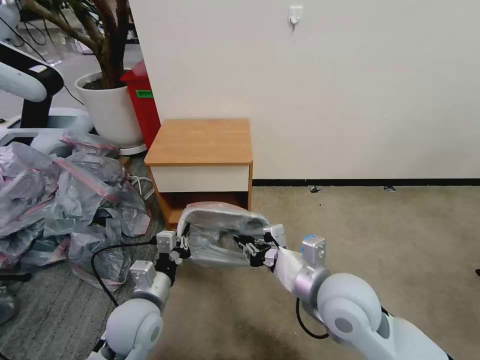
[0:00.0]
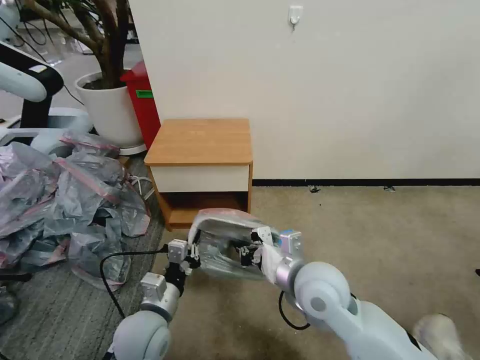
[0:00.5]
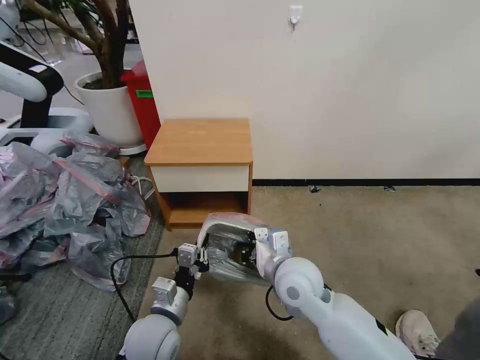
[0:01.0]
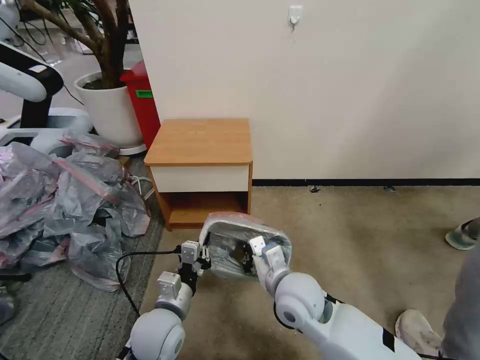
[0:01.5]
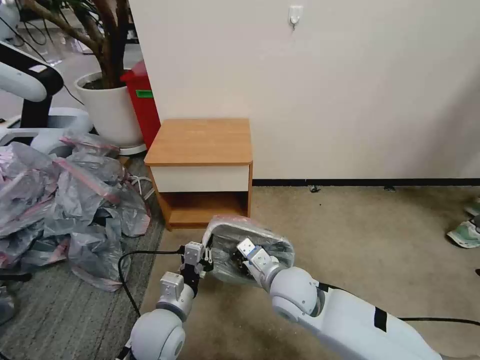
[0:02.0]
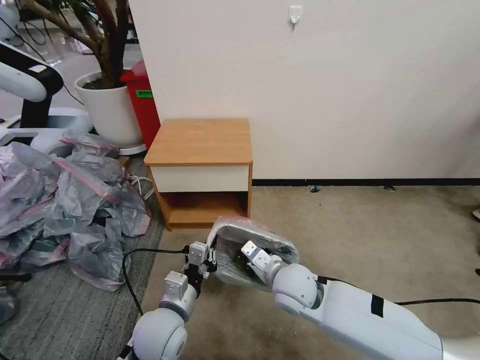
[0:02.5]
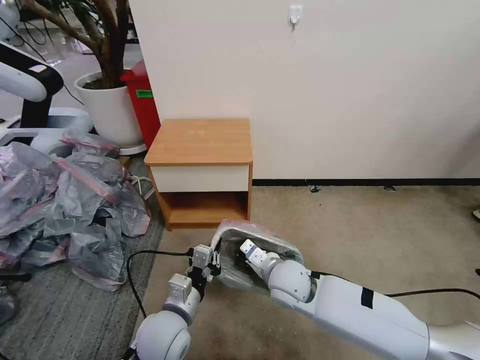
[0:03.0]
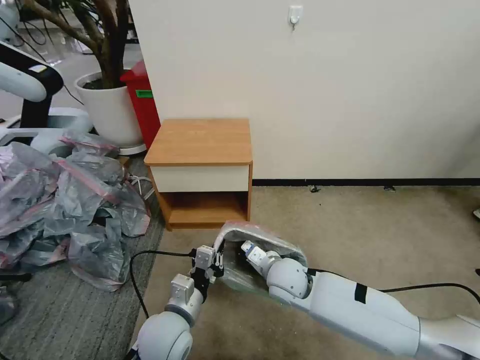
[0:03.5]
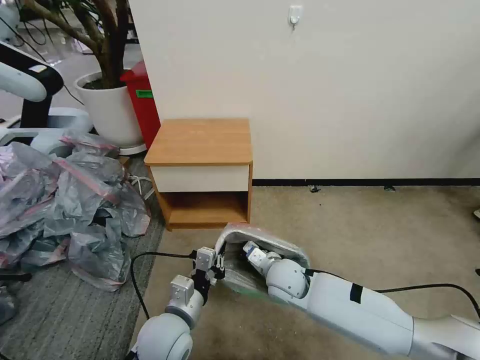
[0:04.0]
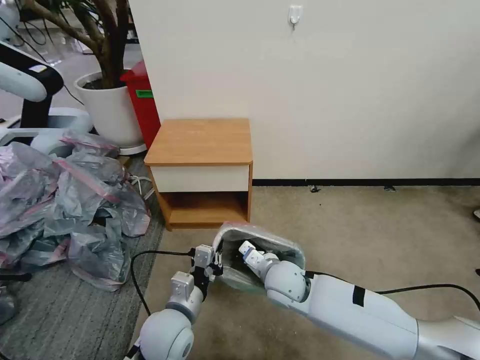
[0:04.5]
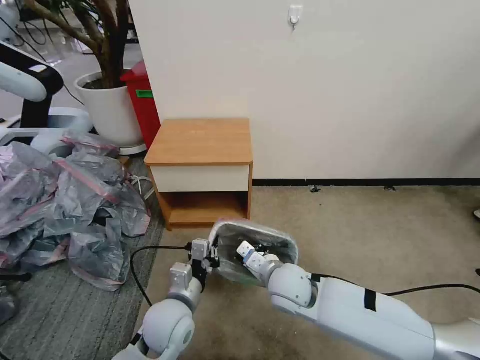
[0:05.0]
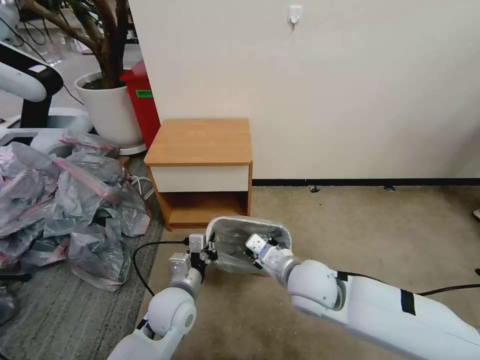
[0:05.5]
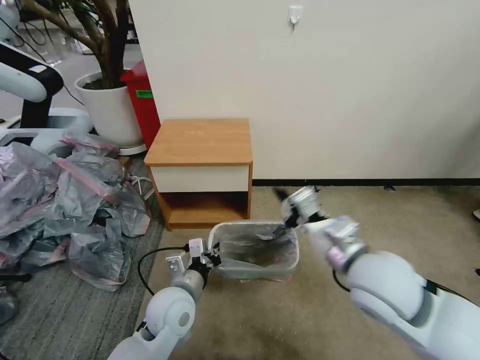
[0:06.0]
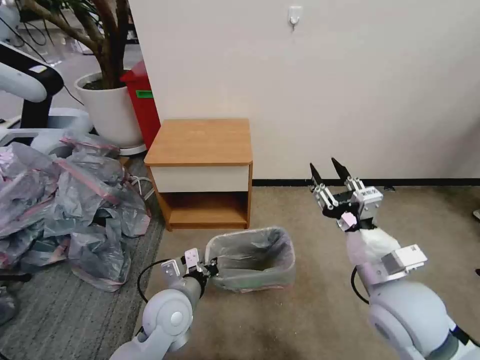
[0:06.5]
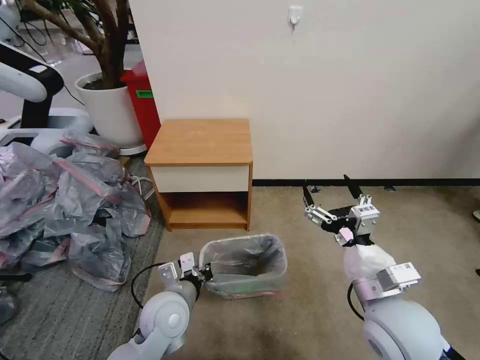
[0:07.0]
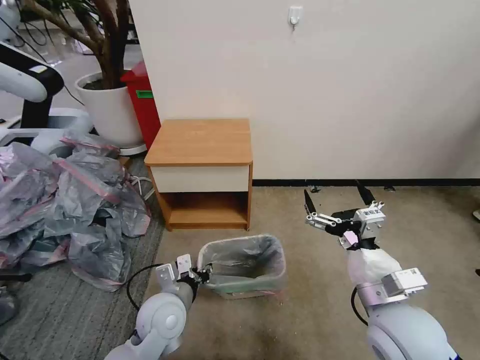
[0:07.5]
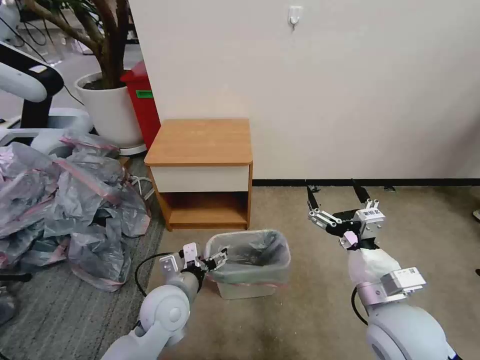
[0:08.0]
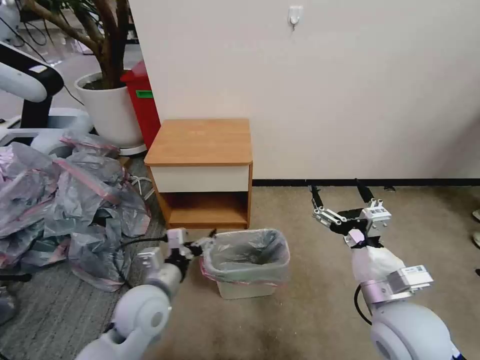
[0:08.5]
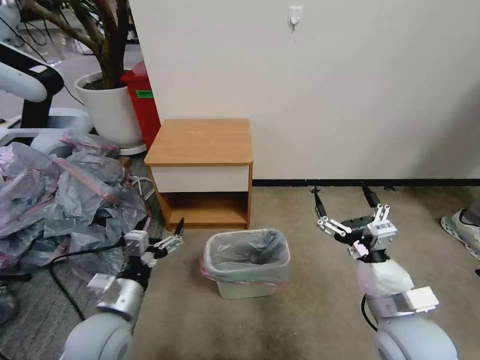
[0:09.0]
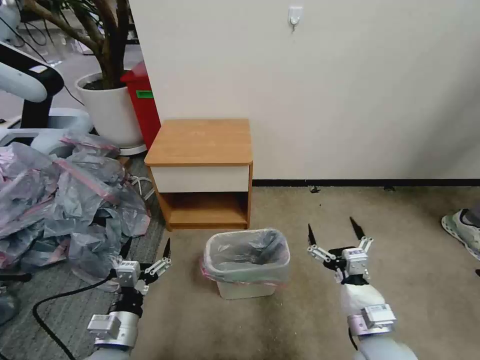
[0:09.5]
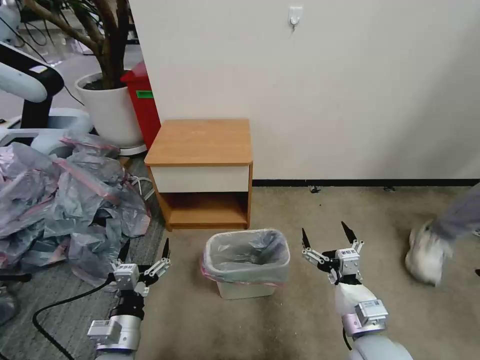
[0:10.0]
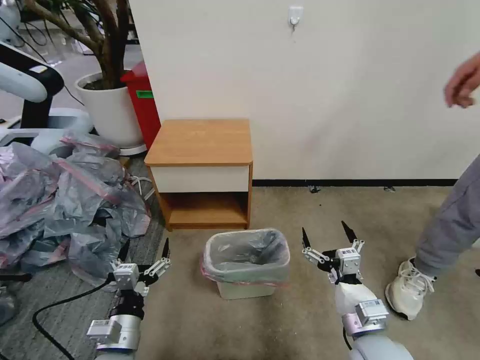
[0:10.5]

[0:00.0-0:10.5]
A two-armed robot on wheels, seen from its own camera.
Task of the whole recording: Pick up the garbage bag from the table and place it over the trash can.
0:00.0 to 0:02.0: The left gripper changes place by about 5 cm. The right gripper is displaced downward and to the left by roughly 10 cm.
0:02.0 to 0:04.0: The right gripper heads downward and forward, covering approximately 10 cm.
0:04.0 to 0:06.5: The right gripper travels upward, to the right and backward by approximately 25 cm, and opens up.
0:06.5 to 0:08.5: The left gripper ends up about 5 cm from where it was, and opens its fingers; the right gripper opens.
0:08.5 to 0:10.5: The left gripper travels backward and downward by approximately 10 cm. The right gripper heads downward, covering some 10 cm.
